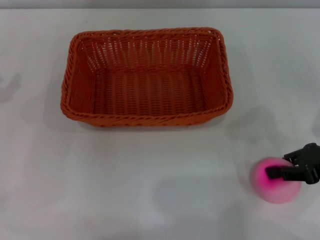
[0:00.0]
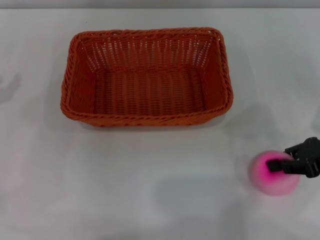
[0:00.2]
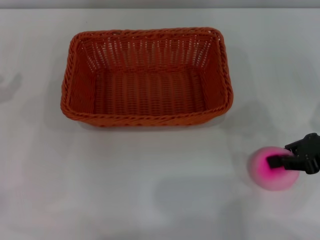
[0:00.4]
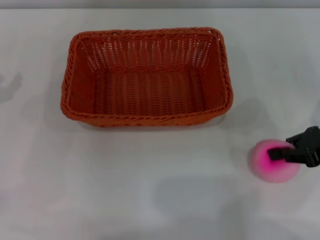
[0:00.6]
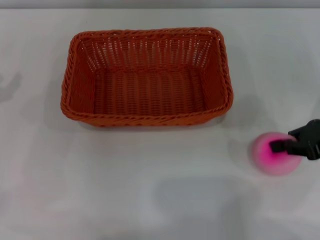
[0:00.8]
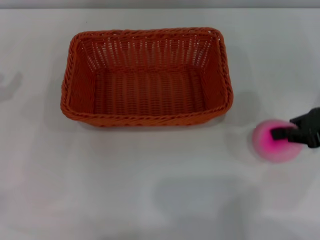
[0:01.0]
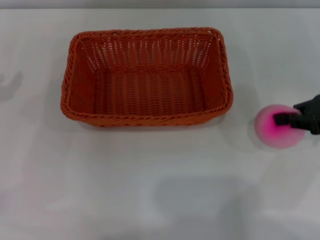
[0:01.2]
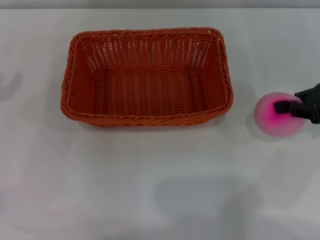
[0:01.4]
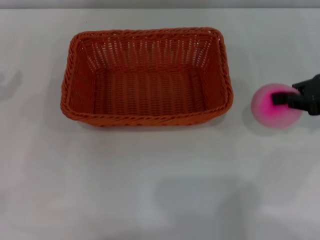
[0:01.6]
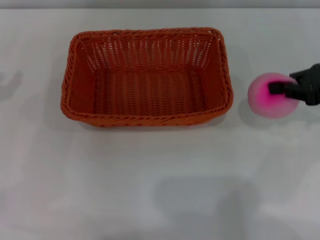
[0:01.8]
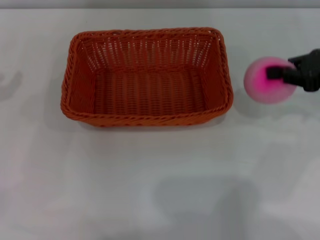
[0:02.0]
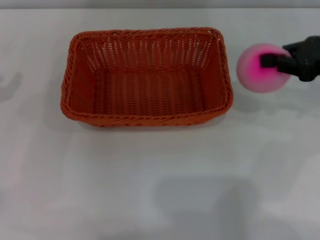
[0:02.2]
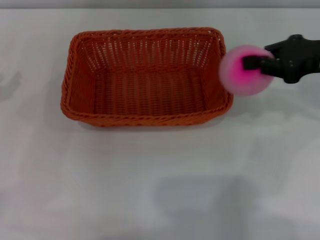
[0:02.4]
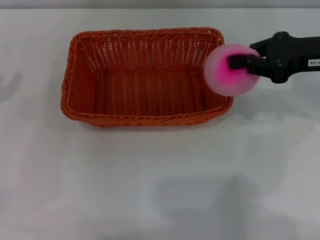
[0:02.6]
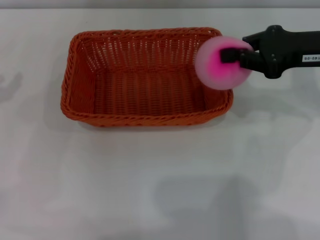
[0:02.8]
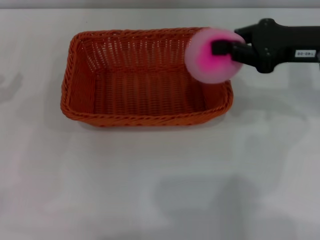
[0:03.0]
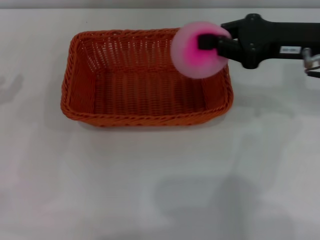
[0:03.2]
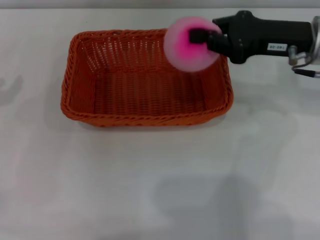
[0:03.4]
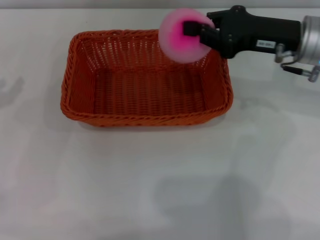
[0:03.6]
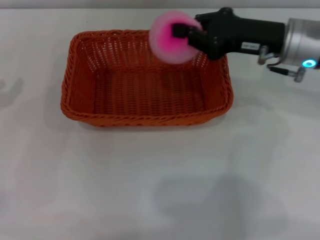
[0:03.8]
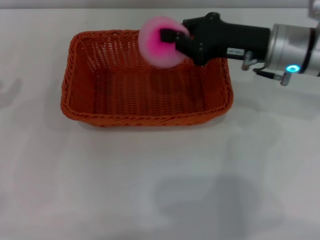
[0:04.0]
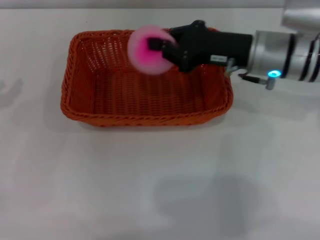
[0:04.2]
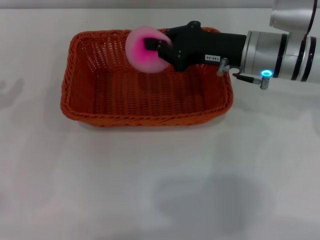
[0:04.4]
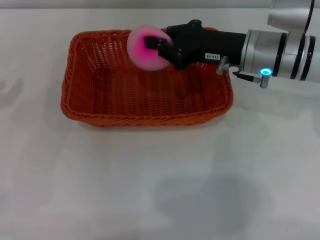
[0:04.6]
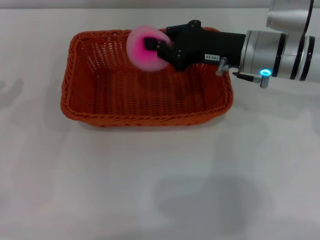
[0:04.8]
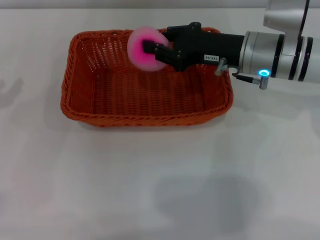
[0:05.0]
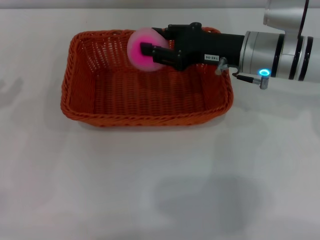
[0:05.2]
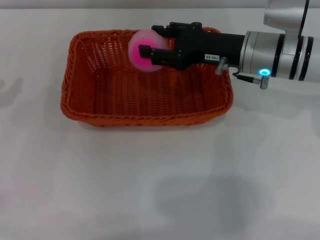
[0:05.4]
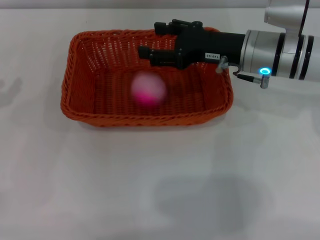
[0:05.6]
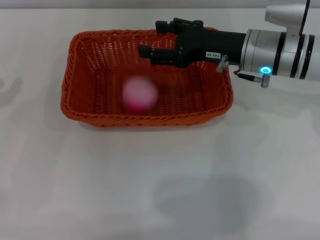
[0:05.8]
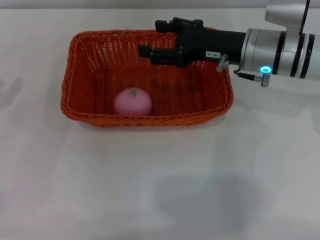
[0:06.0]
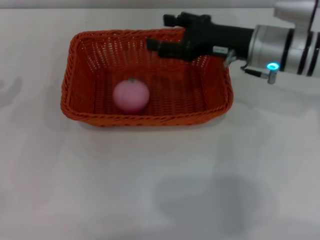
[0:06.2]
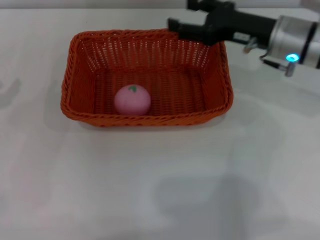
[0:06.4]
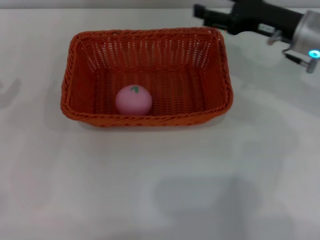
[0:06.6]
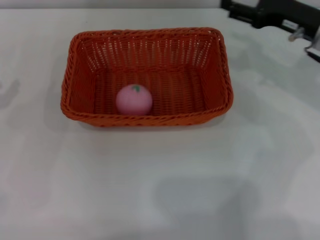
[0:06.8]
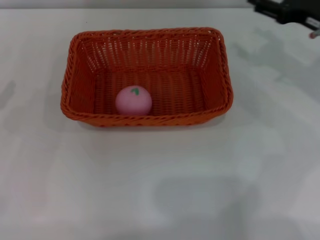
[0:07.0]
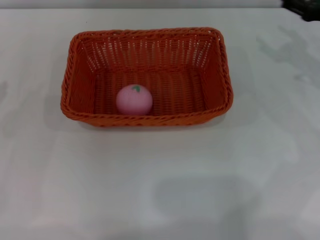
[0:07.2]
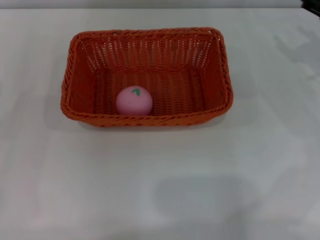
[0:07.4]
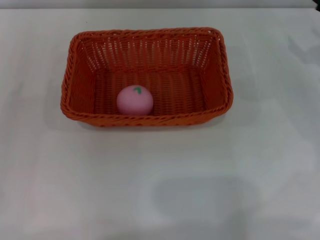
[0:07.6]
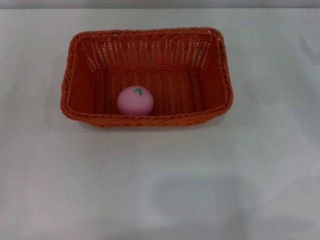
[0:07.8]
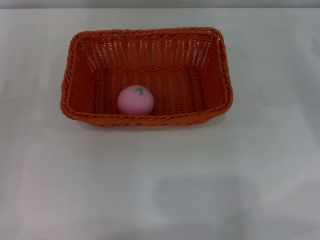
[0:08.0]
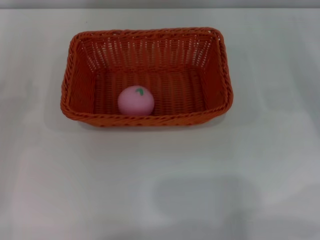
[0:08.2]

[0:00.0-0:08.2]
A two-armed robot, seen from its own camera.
0:00.0 to 0:01.6: The right gripper is displaced upward by about 5 cm.
0:01.6 to 0:03.2: The right gripper is displaced to the left by some 10 cm.
0:03.2 to 0:05.0: The right gripper moves to the left and downward, roughly 10 cm.
0:05.0 to 0:06.6: The right gripper shifts approximately 5 cm to the right, and opens its fingers.
0:06.6 to 0:08.2: The right gripper travels to the right by approximately 15 cm. The left gripper moves about 5 cm.
